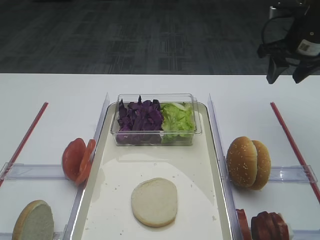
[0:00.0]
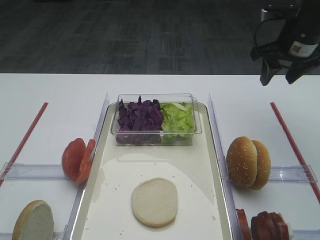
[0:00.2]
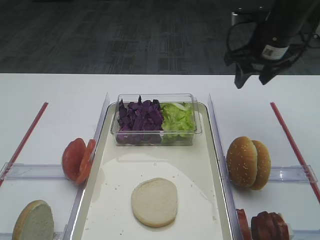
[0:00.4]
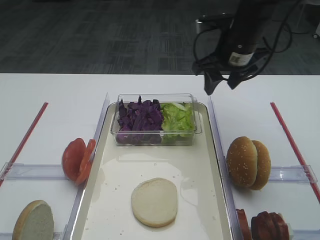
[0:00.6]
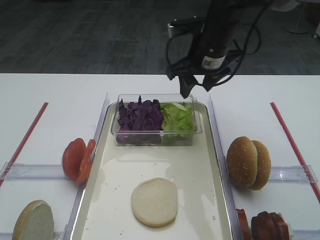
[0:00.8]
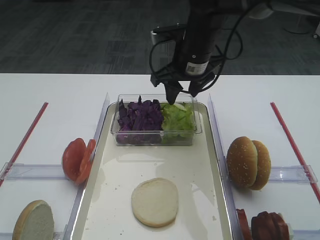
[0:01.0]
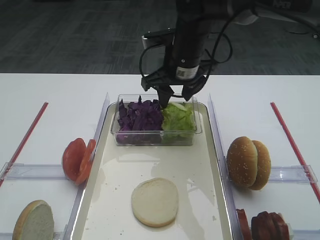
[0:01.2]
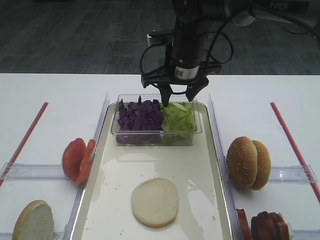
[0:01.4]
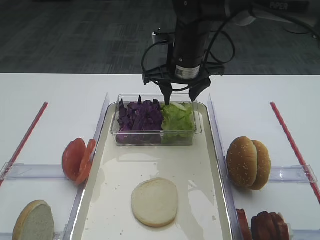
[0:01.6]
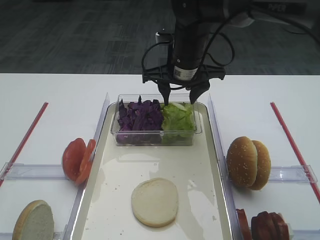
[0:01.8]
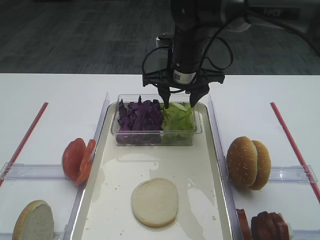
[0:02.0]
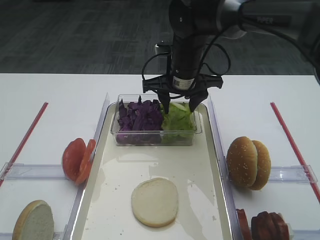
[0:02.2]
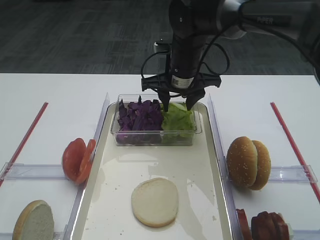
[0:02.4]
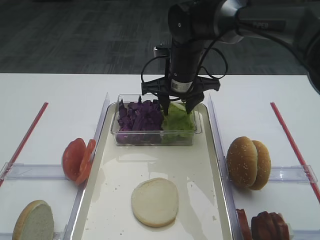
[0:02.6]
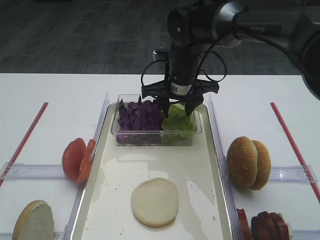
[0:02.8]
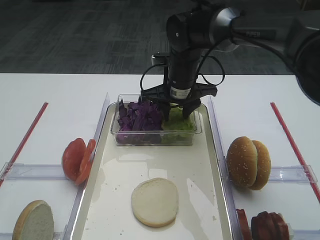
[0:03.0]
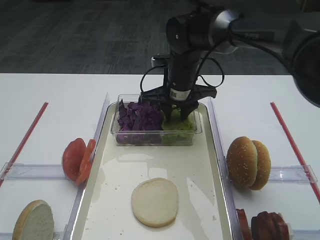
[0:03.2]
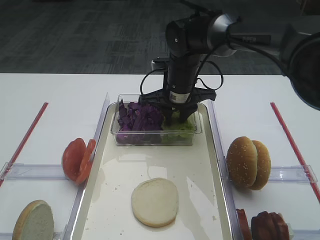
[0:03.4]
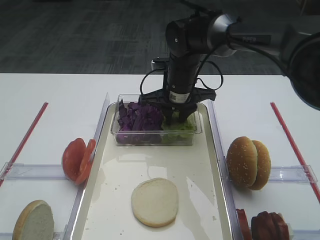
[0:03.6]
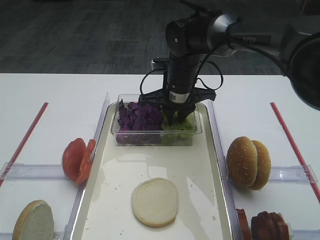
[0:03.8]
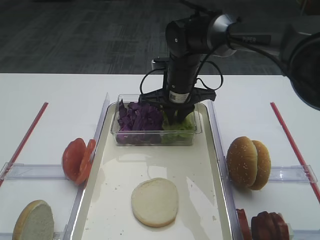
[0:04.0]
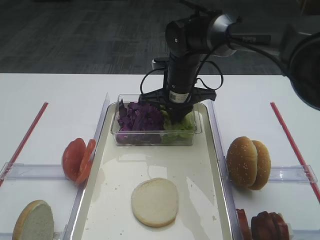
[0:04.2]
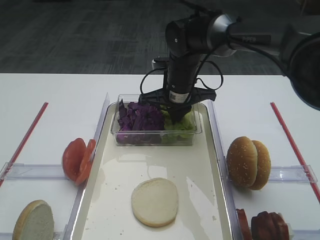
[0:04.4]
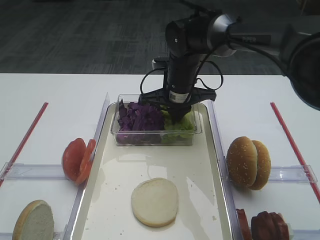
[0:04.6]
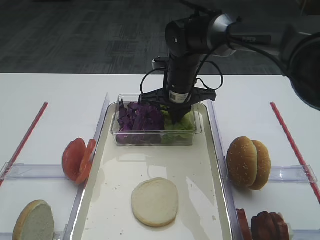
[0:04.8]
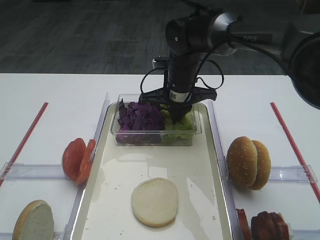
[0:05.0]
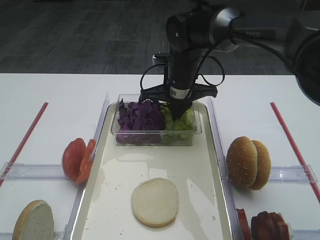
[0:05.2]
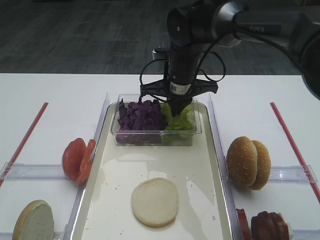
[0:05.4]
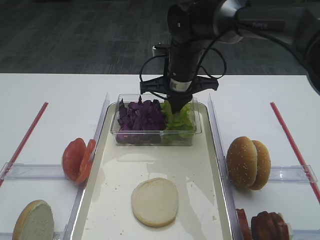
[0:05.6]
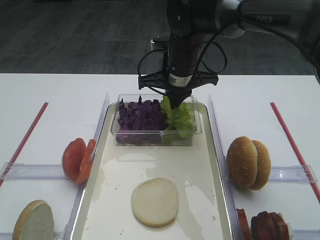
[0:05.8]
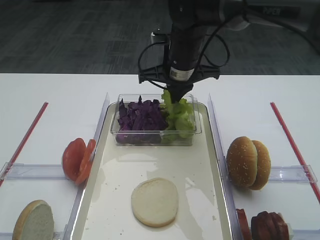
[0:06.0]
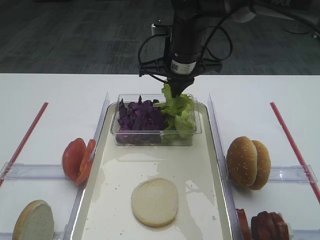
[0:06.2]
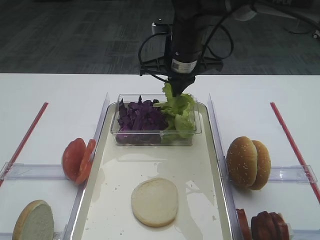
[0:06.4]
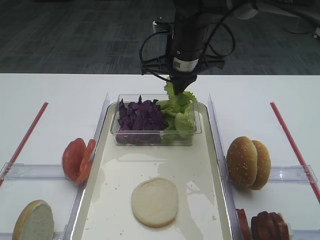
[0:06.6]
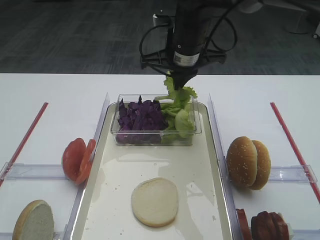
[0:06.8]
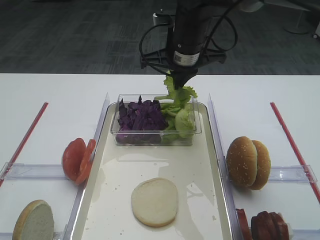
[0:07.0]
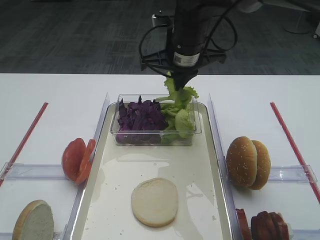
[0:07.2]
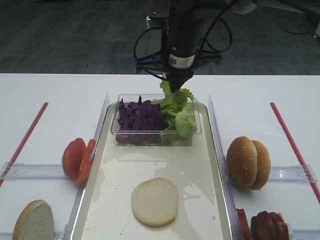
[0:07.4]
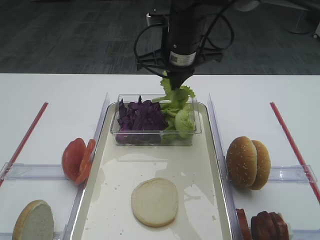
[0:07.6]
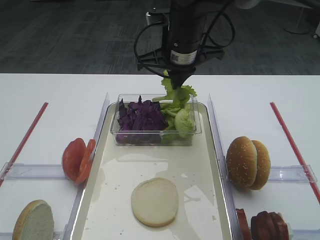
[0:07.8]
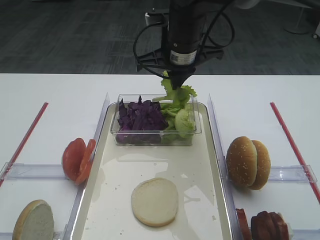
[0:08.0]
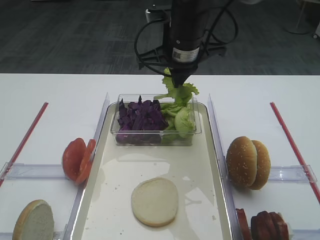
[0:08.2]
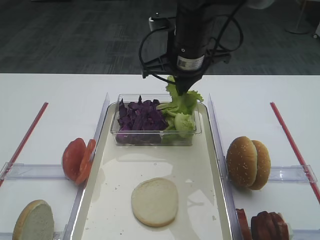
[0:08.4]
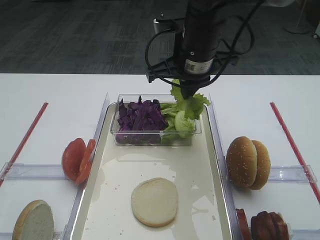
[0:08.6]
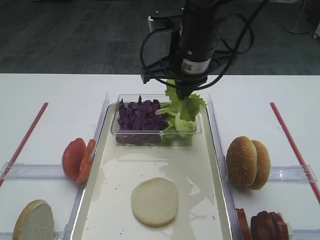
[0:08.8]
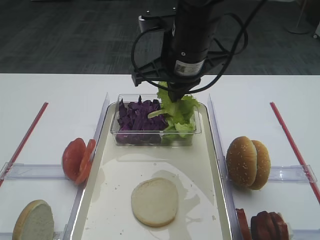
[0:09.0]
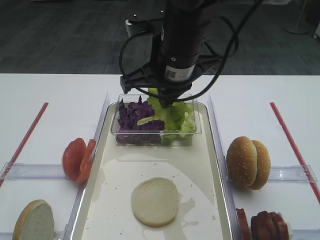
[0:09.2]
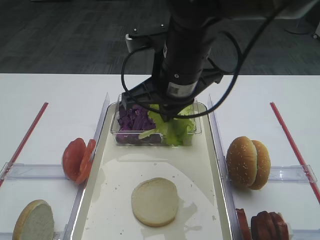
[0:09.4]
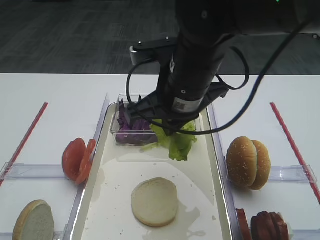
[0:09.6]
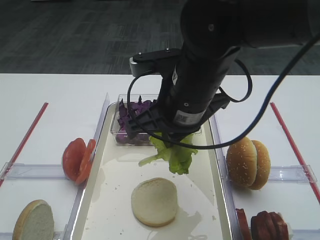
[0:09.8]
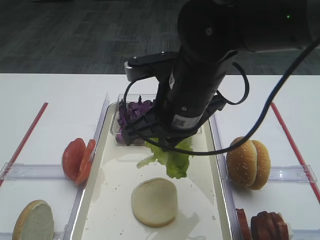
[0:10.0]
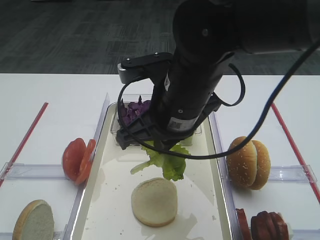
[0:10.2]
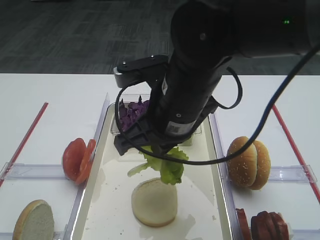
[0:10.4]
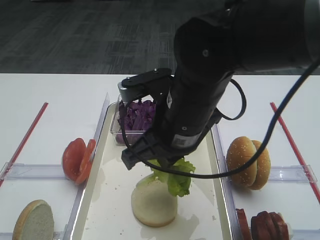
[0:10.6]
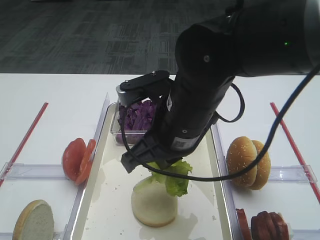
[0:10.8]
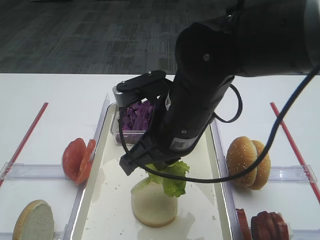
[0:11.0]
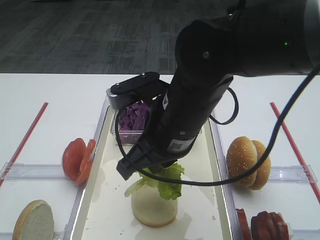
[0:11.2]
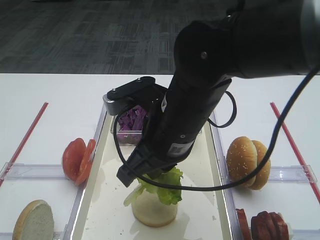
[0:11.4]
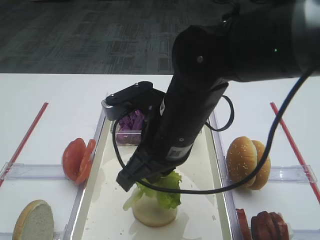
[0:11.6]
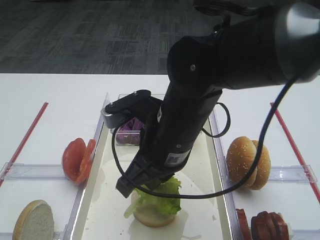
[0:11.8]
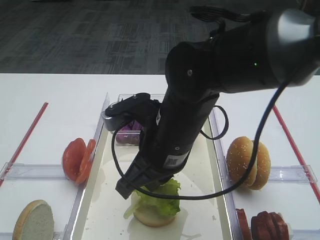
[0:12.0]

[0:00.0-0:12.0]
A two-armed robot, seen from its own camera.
Step, 0:00.0 to 0:06.0: Pick up the lettuce leaf with the right gripper.
0:00.0 to 0:01.6: The right gripper goes approximately 20 cm to the left.
0:01.6 to 0:03.0: The right gripper changes place by roughly 5 cm.
0:03.0 to 0:04.4: The right gripper closes its fingers.
0:04.4 to 0:06.0: The right gripper shifts approximately 5 cm upward.
0:06.0 to 0:07.6: The grippers stay close to where they were, moving slightly.
0:07.6 to 0:09.0: The right gripper shifts roughly 5 cm backward.
0:09.0 to 0:10.4: The right gripper moves backward, some 10 cm.

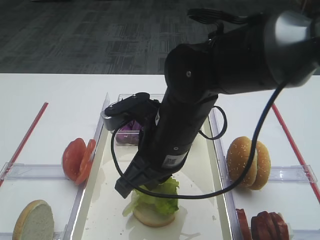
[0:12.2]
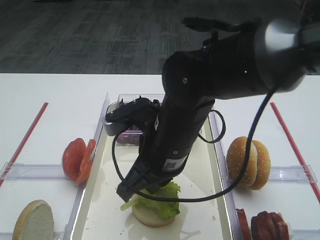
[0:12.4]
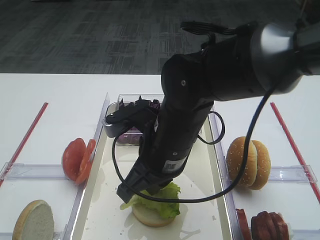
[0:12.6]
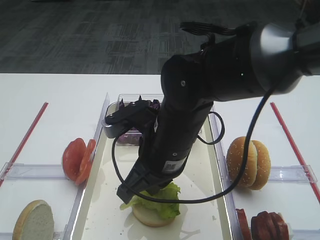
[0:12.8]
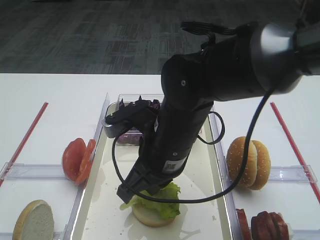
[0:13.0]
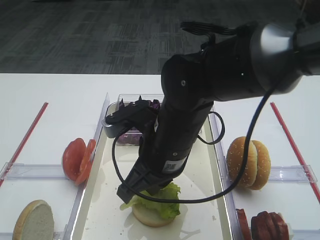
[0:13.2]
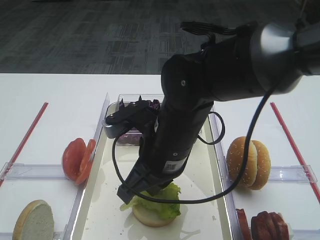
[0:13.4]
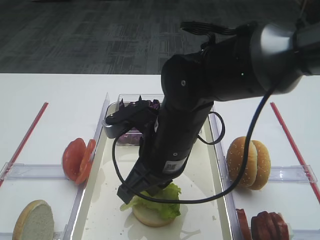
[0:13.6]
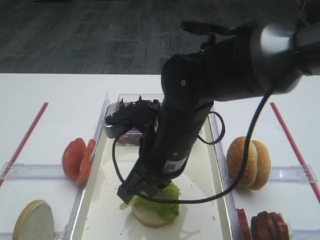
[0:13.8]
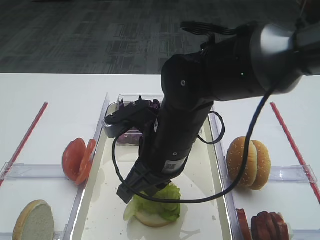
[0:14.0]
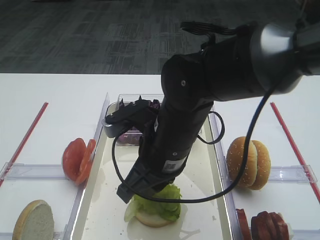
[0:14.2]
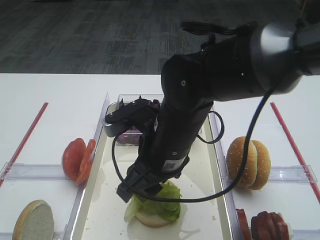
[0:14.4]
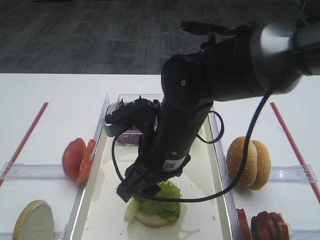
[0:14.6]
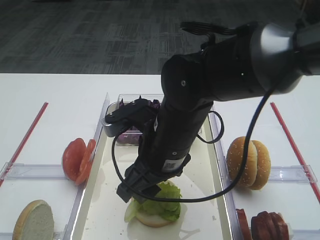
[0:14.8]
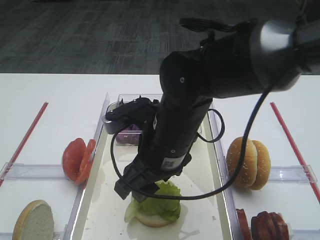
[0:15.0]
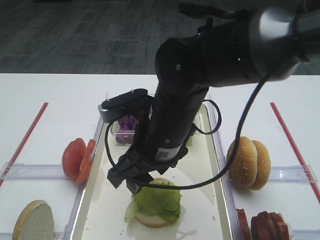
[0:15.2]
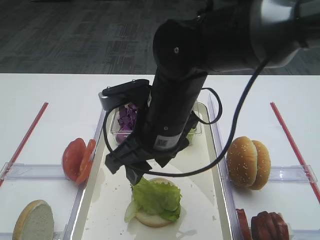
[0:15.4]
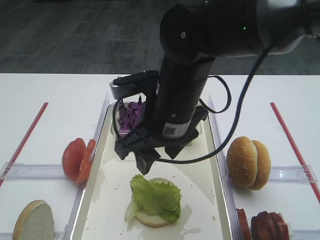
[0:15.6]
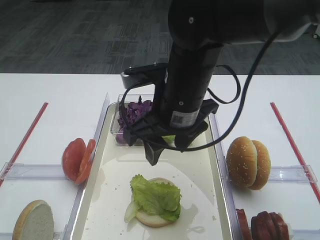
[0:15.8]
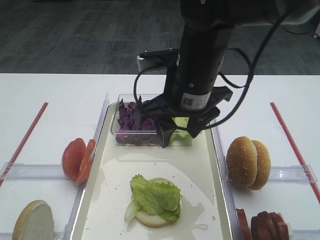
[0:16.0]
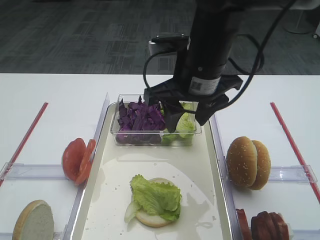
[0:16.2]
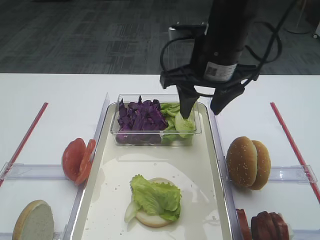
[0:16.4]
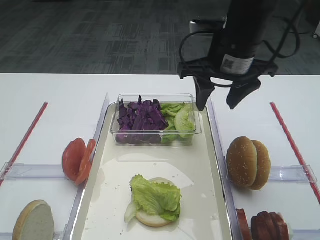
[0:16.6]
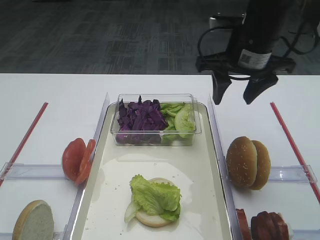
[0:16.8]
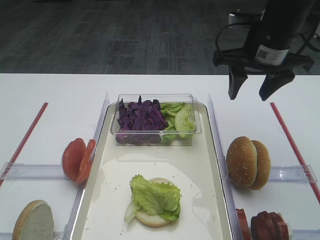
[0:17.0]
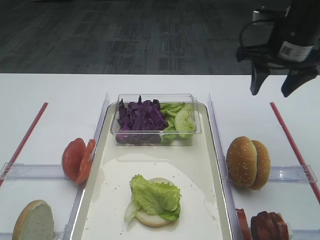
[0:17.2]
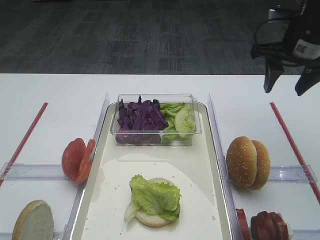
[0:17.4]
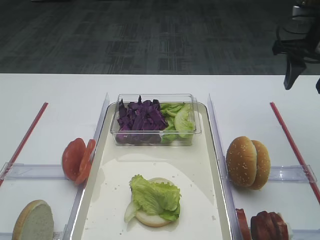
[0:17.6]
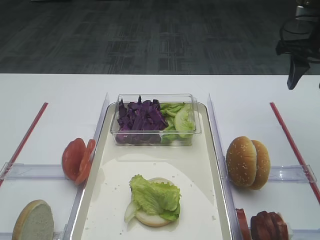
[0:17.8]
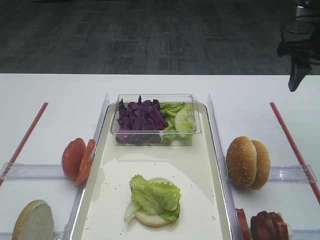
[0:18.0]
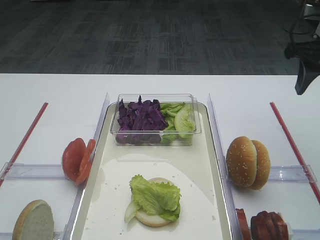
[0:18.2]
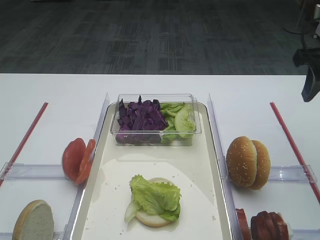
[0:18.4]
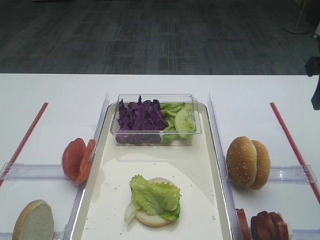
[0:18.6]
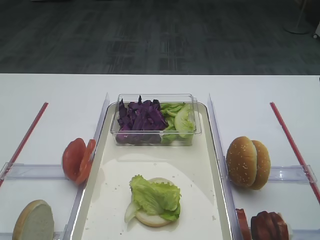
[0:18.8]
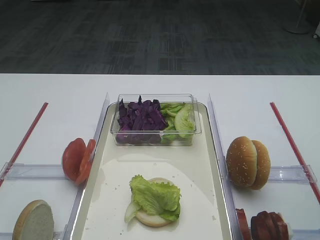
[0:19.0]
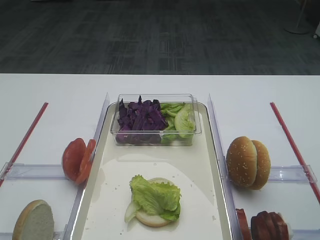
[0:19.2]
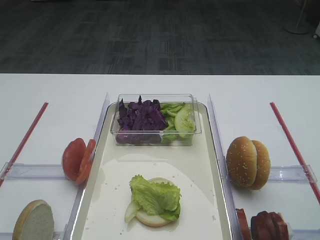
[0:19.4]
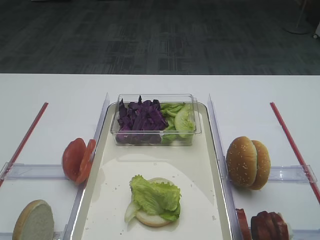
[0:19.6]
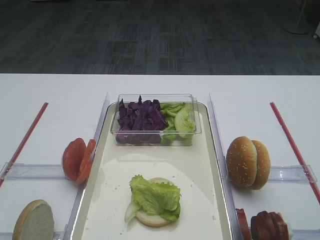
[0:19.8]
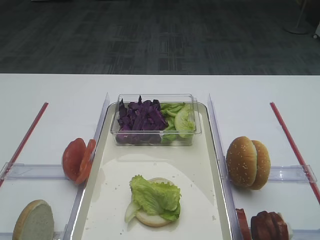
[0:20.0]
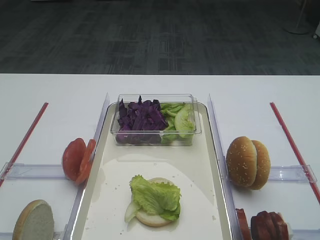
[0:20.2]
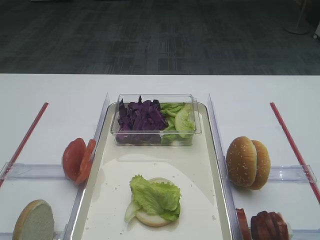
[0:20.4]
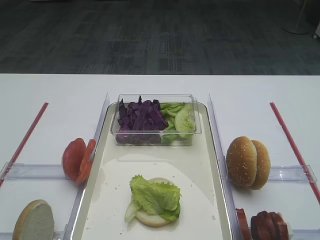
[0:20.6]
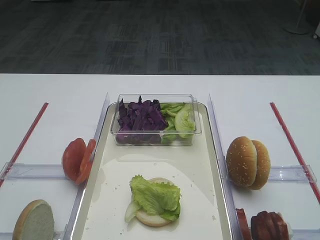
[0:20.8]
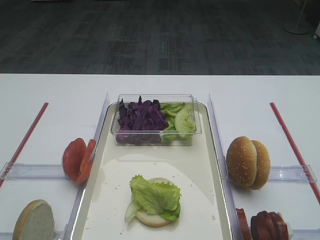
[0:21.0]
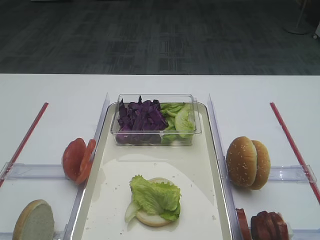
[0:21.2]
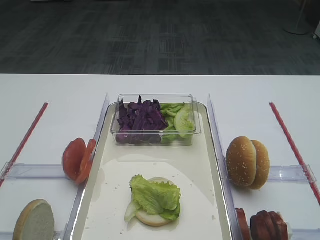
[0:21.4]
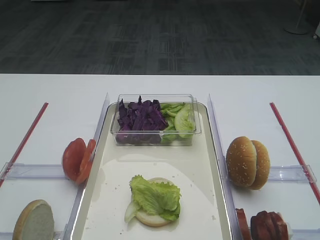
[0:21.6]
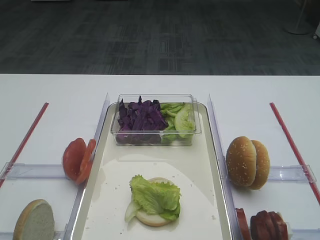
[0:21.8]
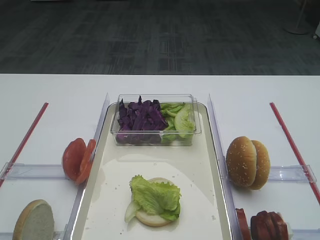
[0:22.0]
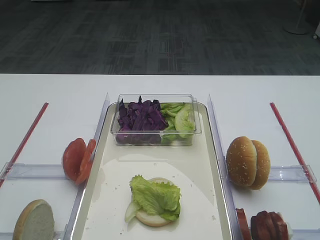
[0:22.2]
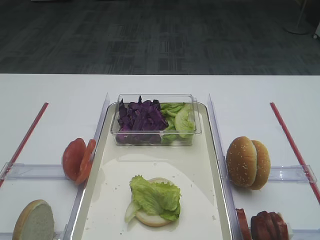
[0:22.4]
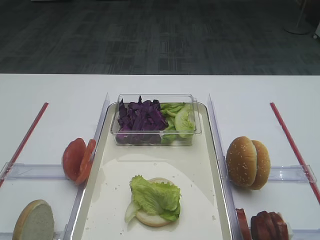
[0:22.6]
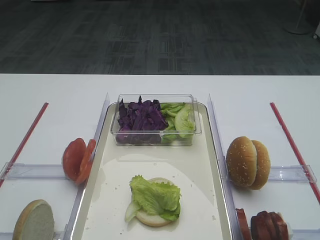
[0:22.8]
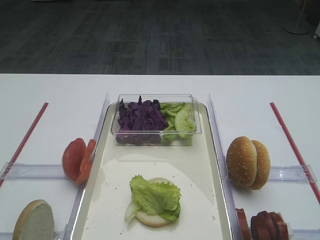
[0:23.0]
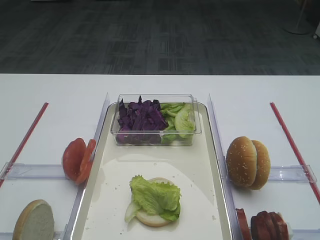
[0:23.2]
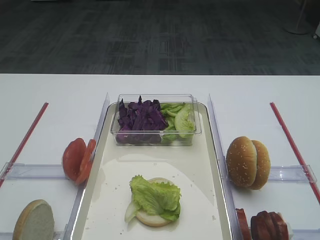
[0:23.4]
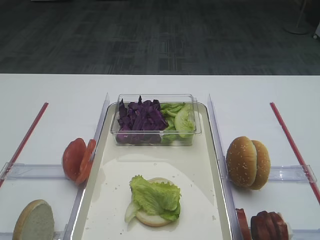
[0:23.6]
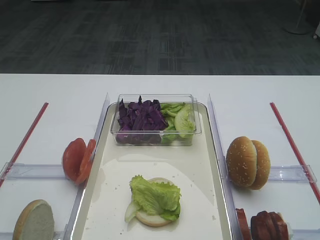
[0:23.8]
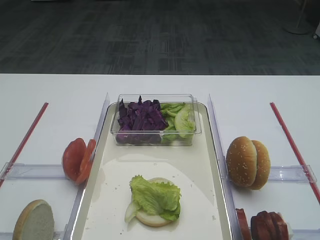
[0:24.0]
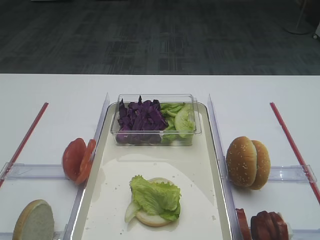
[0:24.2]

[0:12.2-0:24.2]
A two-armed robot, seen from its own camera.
Step, 0:12.2 to 0:15.2: Place the lettuce leaf on the bread slice with the right gripper.
0:12.2 to 0:13.8: Both grippers stay about where they are.
0:13.8 to 0:15.2: The right gripper opens its fingers.
0:15.2 to 0:16.6: The right gripper is displaced to the right, forward and upward by some 15 cm.
0:16.6 to 0:18.2: The right gripper is displaced to the right by approximately 15 cm.
0:18.2 to 0:19.8: The right gripper heads backward, covering roughly 25 cm.
0:21.2 to 0:24.2: Both grippers stay put.
